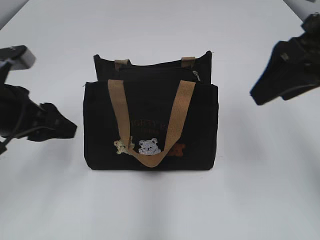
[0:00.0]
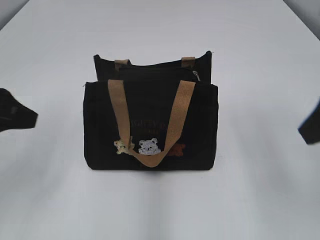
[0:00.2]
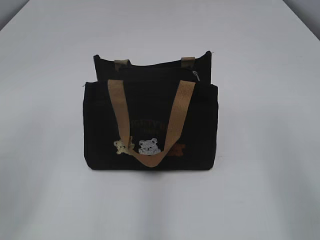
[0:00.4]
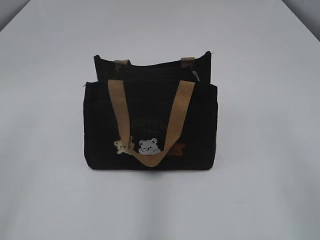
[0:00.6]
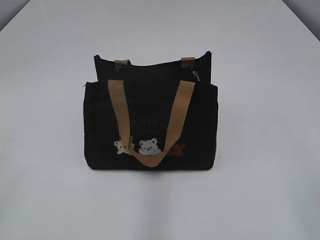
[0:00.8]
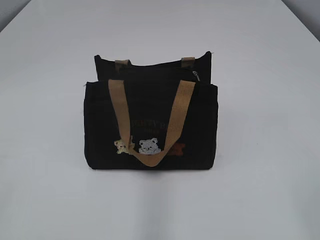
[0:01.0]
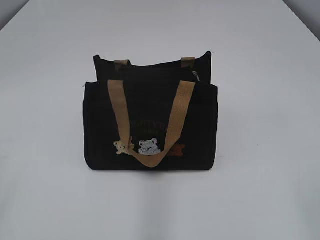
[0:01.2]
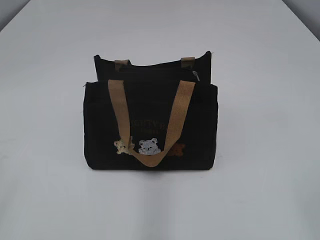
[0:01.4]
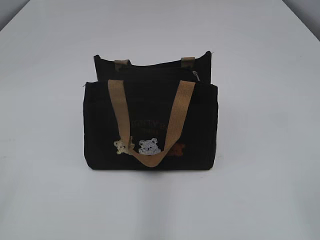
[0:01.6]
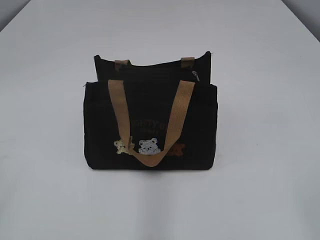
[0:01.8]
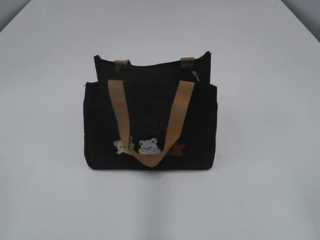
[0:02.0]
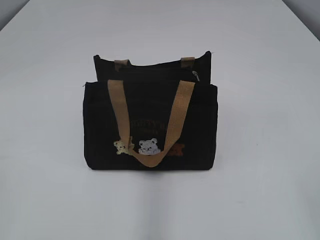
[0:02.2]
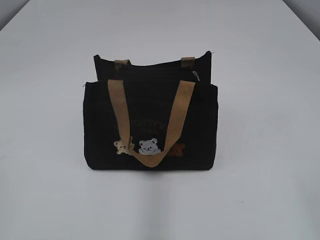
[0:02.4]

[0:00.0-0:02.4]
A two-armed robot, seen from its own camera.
0:00.0 to 0:01.2: Both grippers travel together backward, about 25 cm.

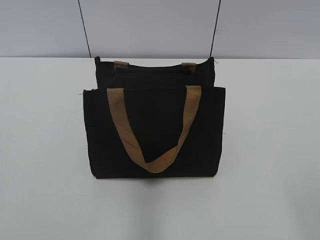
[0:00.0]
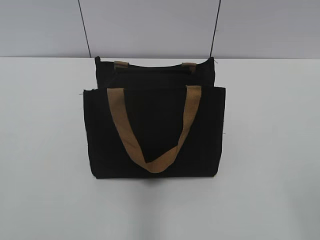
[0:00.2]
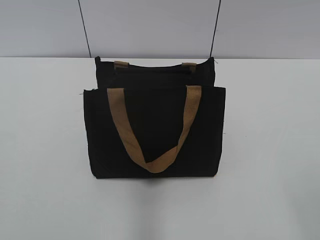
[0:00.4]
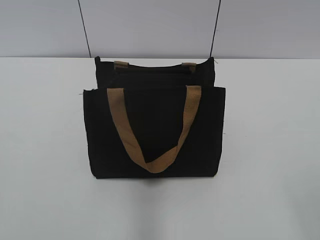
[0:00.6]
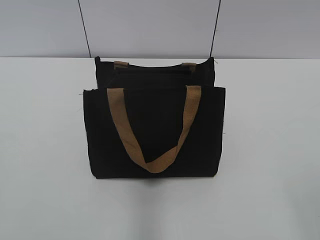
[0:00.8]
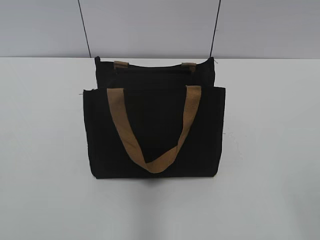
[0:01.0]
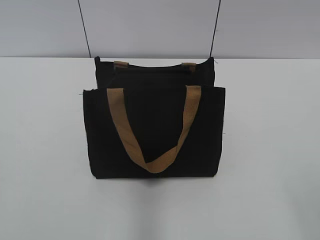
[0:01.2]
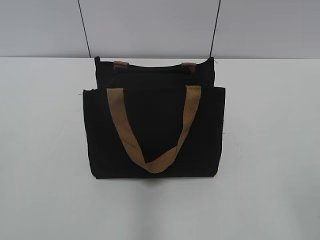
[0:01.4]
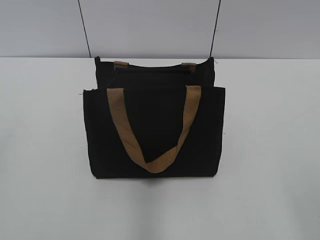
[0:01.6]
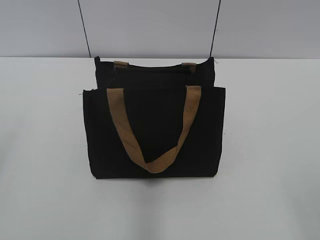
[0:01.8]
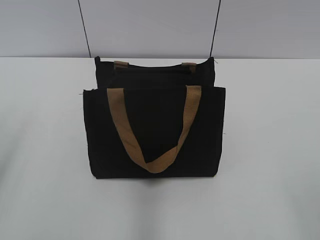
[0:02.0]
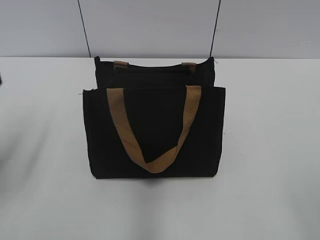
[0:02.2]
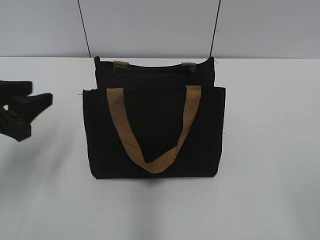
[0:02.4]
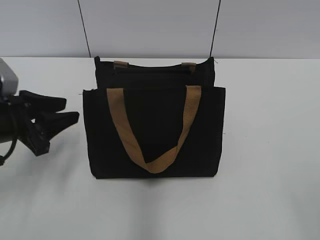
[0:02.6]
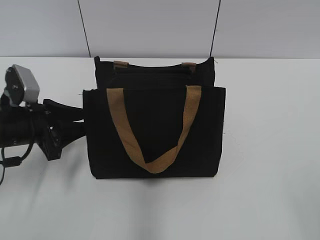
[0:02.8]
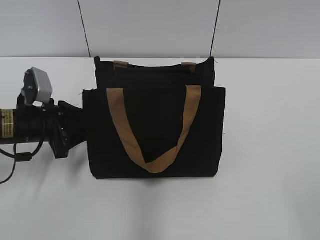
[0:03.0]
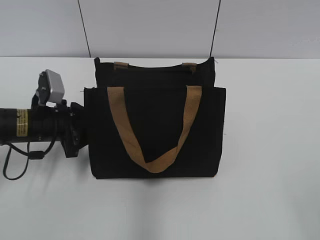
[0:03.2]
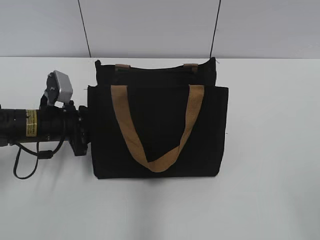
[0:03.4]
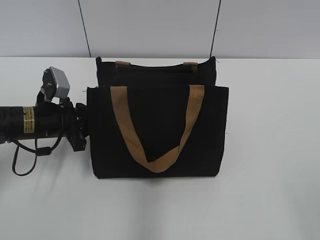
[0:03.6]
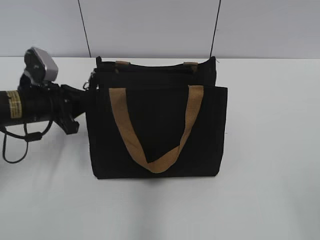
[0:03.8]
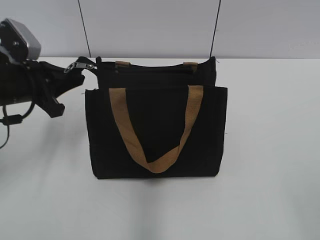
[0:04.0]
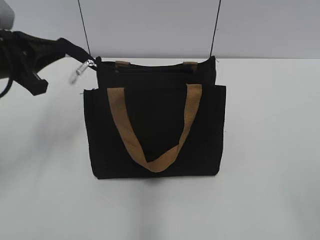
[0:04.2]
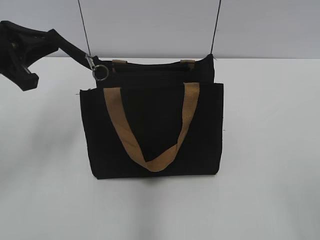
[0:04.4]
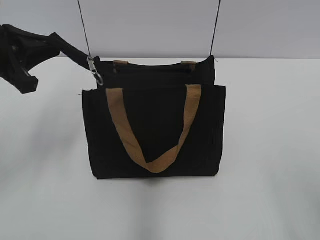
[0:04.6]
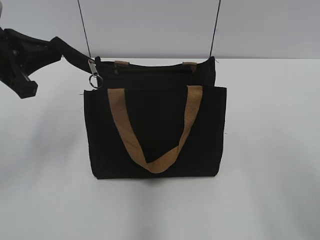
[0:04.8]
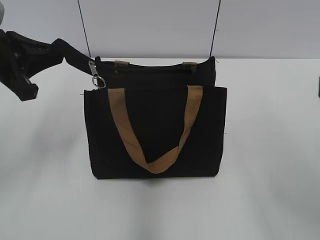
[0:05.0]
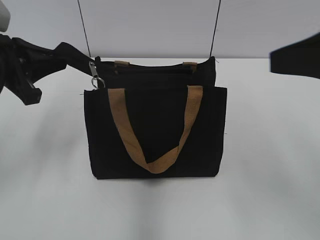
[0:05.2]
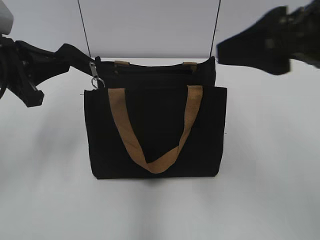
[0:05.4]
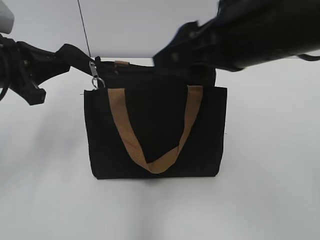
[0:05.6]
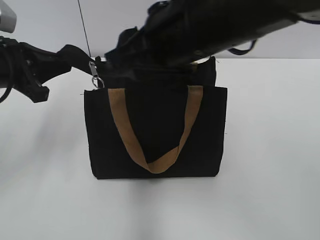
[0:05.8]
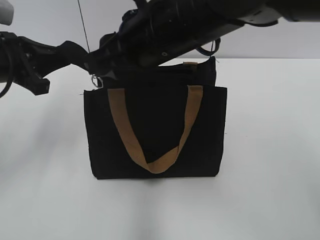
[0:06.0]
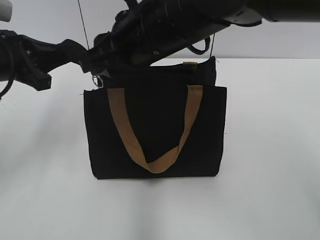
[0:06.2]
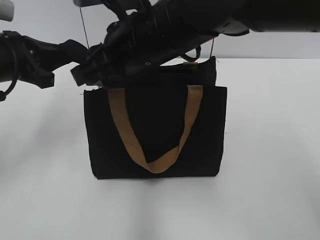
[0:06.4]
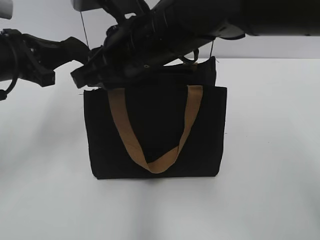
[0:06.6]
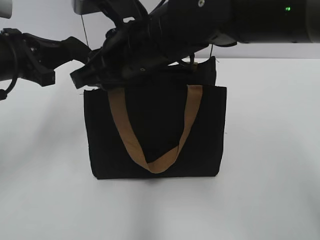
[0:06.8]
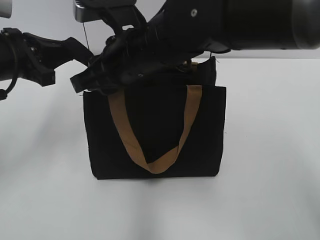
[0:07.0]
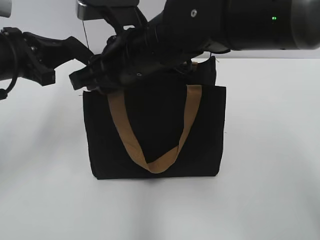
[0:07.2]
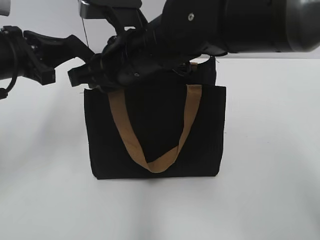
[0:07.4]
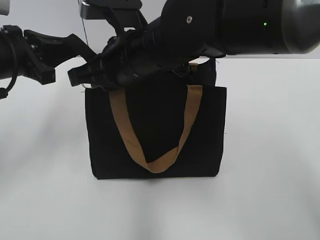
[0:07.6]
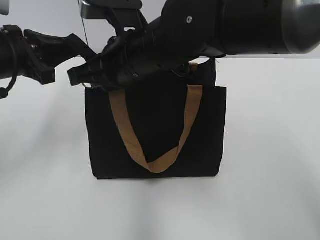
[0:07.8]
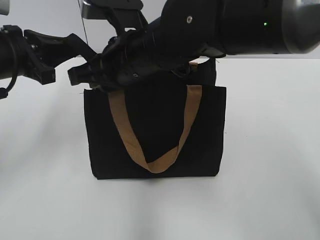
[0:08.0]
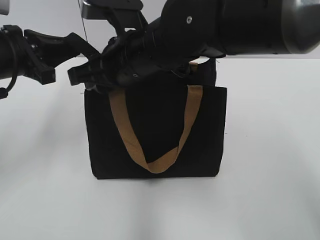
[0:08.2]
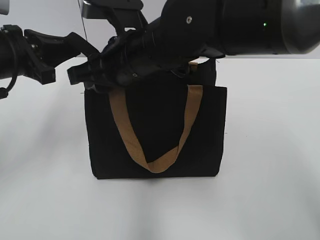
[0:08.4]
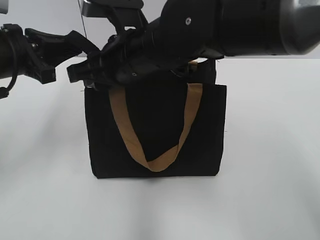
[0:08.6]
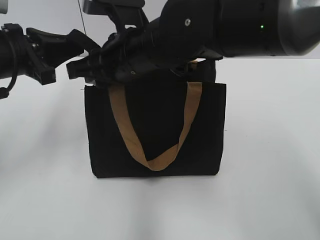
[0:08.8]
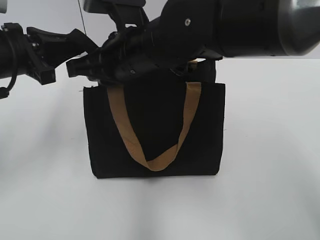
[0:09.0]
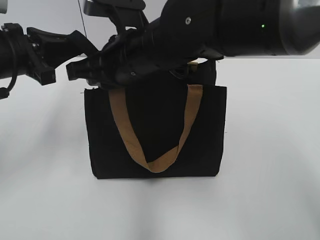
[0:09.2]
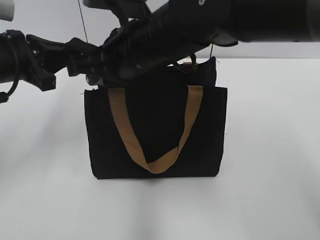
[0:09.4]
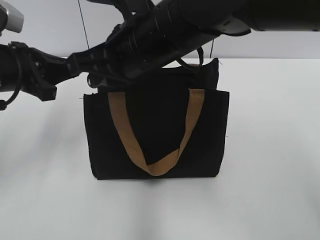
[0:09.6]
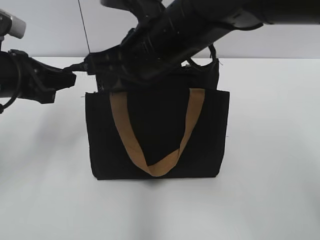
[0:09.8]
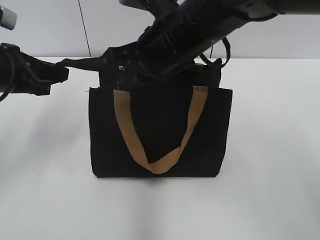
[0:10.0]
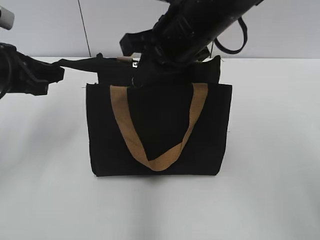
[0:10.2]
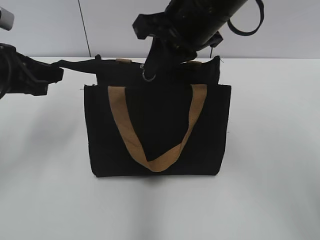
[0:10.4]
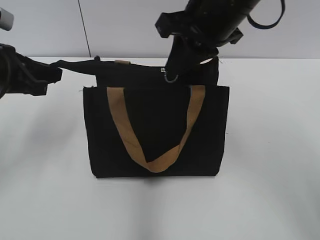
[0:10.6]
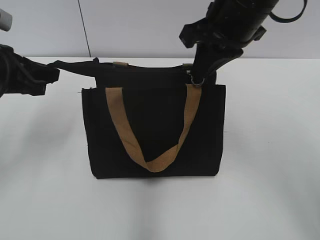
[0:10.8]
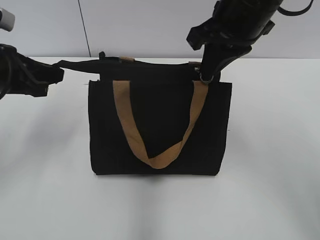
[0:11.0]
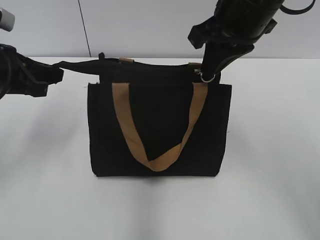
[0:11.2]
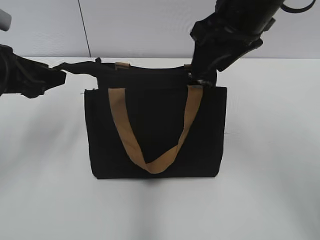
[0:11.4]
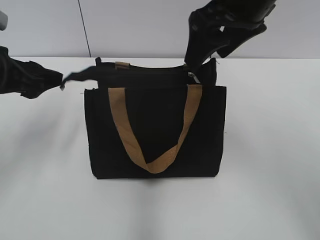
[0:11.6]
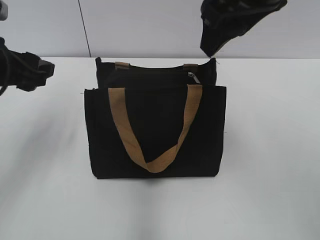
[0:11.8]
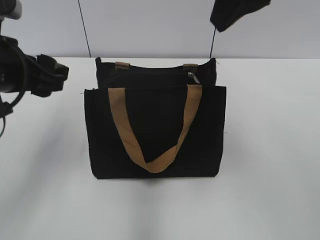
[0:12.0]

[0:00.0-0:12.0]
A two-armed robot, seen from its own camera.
Step, 0:00.0 to 0:11.4: Zip up the bag with your right hand.
Step, 0:11.6 to 0:12.0: Grab the zipper with your left hand.
0:01.6 to 0:03.0: The left gripper travels forward and downward by approximately 35 cm.
0:03.0 to 0:04.4: The left gripper goes approximately 15 cm upward, and closes up.
0:04.4 to 0:06.0: The right gripper goes some 40 cm forward and to the left, and closes up.
0:06.0 to 0:07.6: The right gripper moves some 5 cm, and closes.
0:07.6 to 0:09.0: The right gripper opens, then closes again.
0:09.0 to 0:10.4: The right gripper moves to the right and upward, some 10 cm.
0:10.4 to 0:12.0: The right gripper travels upward, backward and to the right by approximately 10 cm, and opens, while the left gripper ends up roughly 5 cm from where it was, and opens.

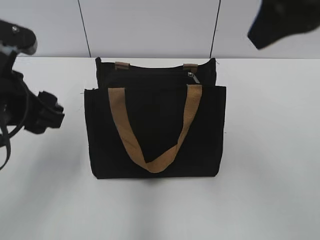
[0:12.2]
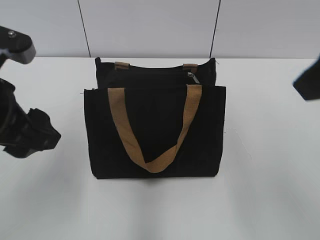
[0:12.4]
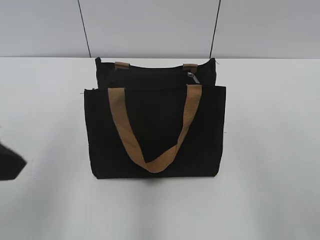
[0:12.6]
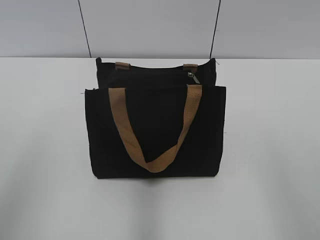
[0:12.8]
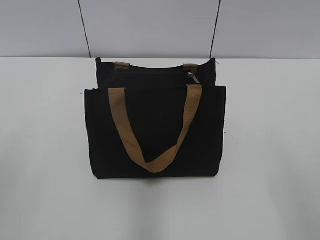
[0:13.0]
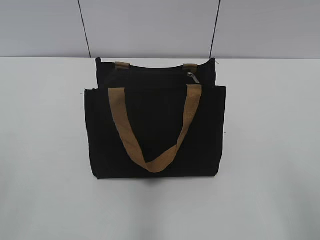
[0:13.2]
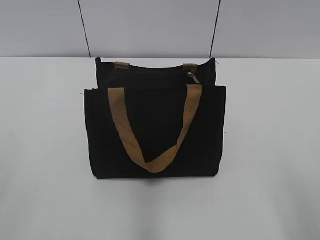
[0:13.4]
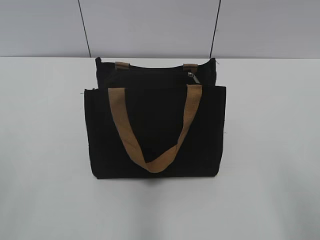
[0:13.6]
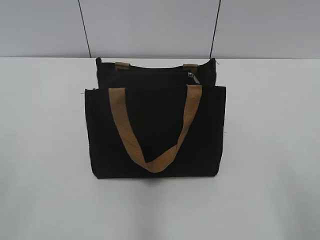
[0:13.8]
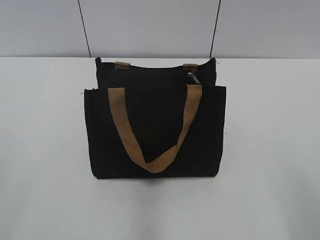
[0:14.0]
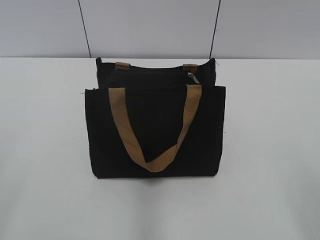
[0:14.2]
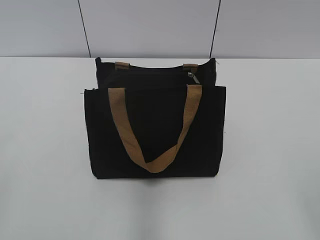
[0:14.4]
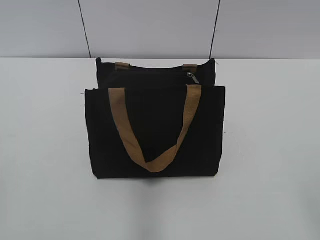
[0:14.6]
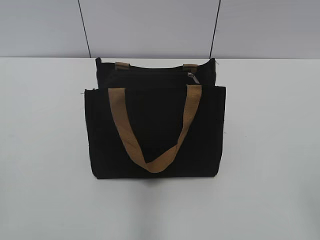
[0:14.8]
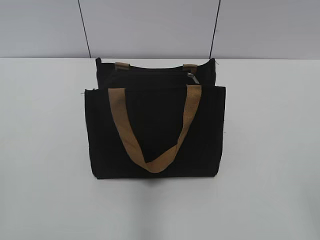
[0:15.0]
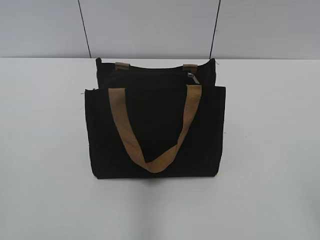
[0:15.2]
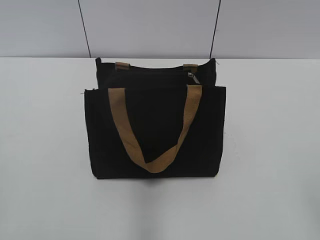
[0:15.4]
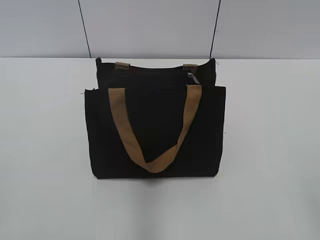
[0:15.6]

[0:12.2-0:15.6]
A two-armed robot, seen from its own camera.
0:12.2 to 0:13.8: The right gripper travels backward, downward and to the right by about 25 cm. The left gripper is displaced backward and to the left by some 25 cm.

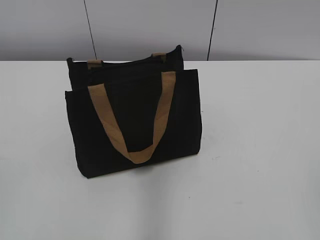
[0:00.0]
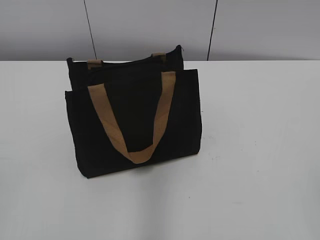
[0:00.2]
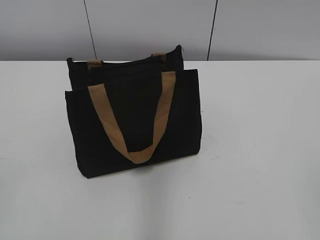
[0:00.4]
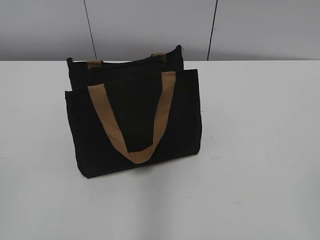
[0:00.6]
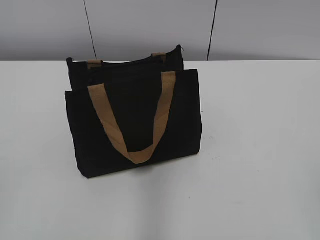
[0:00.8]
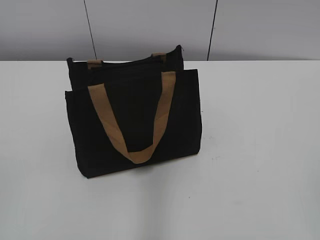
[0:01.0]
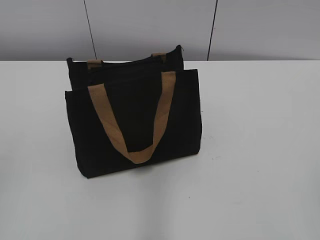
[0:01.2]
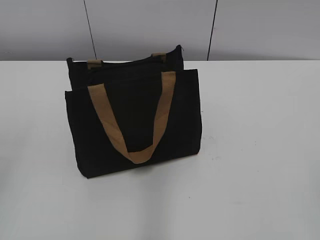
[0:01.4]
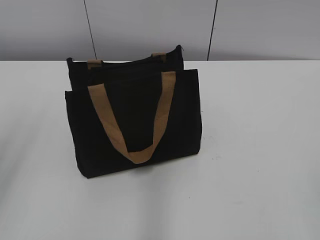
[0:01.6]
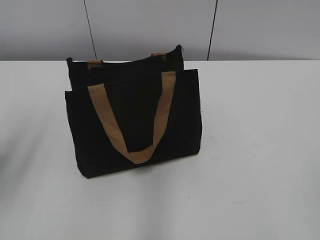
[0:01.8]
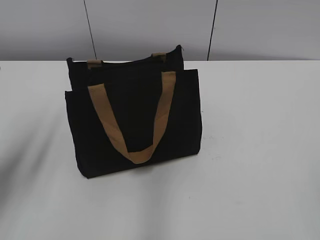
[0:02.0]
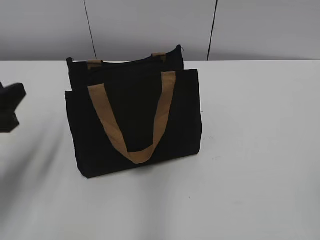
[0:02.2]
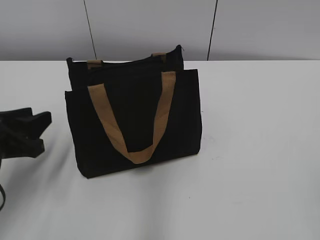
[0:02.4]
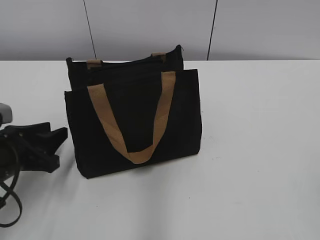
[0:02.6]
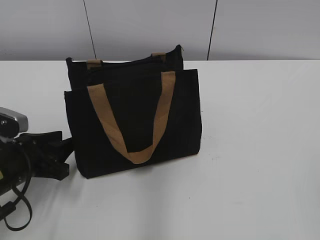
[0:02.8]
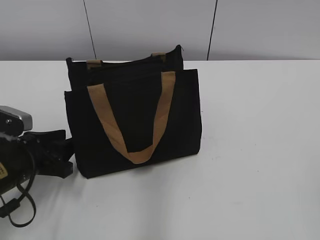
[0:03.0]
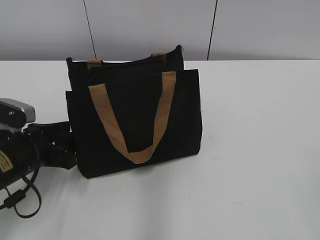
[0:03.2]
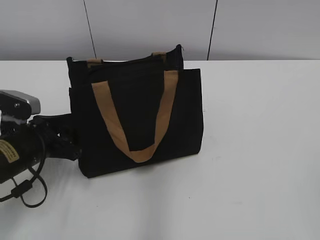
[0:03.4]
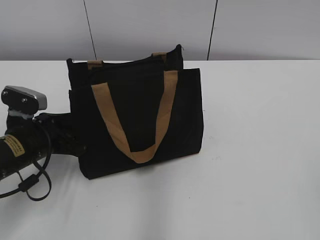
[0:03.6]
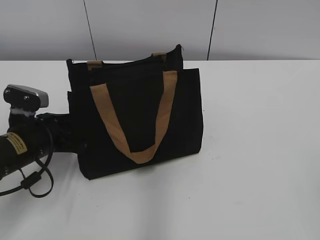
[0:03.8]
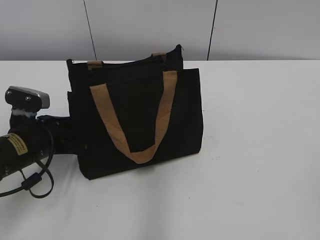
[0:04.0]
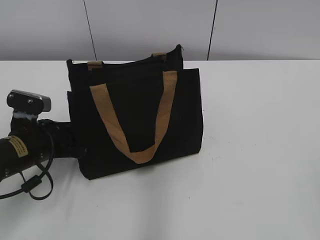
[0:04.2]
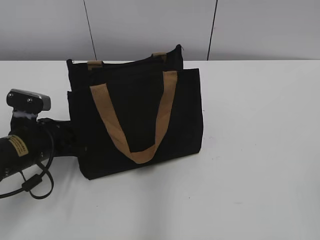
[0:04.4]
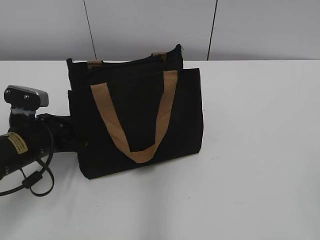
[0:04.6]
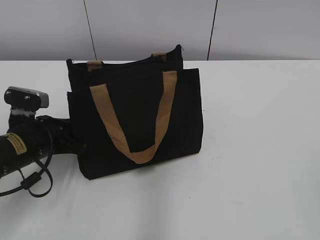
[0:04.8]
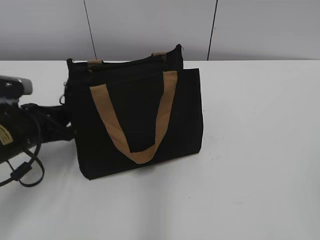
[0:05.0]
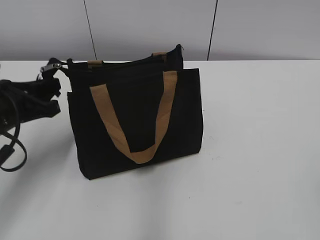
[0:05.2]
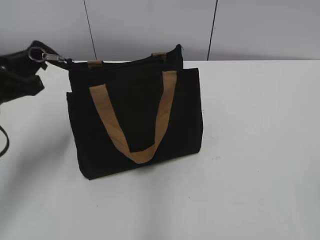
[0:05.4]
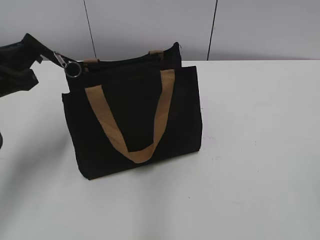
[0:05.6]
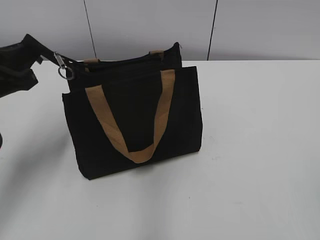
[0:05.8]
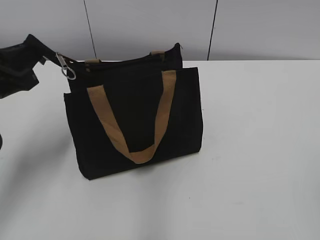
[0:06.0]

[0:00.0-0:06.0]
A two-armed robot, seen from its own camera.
0:01.6 to 0:03.0: The left gripper is displaced downward and forward by about 25 cm.
0:03.0 to 0:04.4: The grippers move only a little.
0:04.4 to 0:06.0: The left gripper moves upward, about 15 cm, and closes its fingers.
